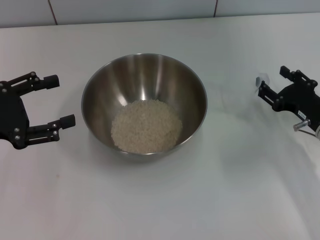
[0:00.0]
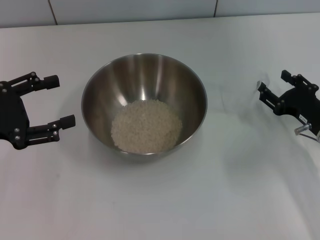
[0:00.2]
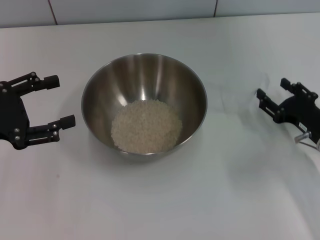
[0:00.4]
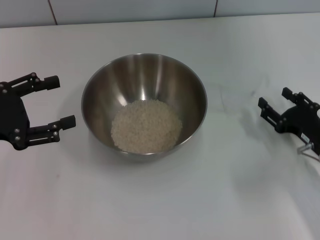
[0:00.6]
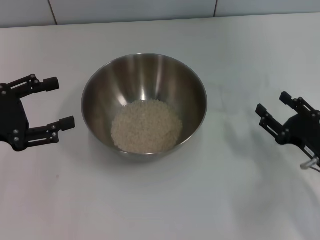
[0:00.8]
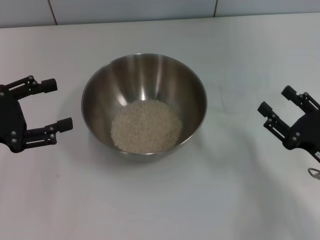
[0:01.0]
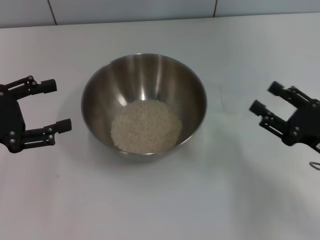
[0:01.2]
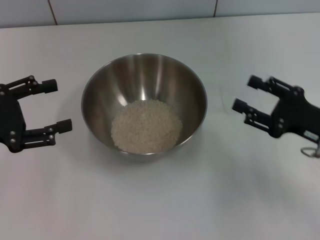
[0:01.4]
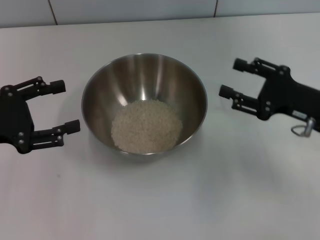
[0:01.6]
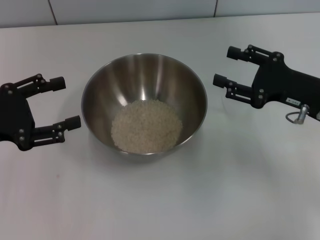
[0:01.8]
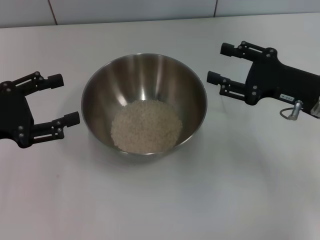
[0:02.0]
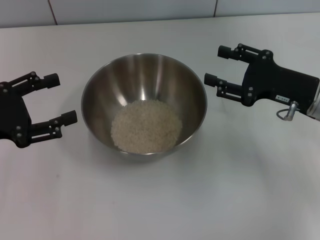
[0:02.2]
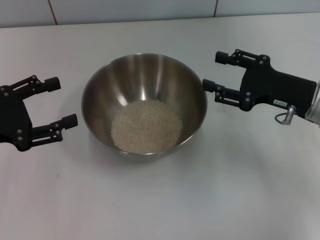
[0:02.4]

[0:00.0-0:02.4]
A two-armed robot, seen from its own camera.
Task of the whole recording: Place the bowl in the middle of the table with one hand and pour the rice from the grain cup into it with the other hand.
0:00.0 to 0:01.2: The right gripper shifts some 5 cm backward.
0:01.2 to 0:02.4: The right gripper goes about 10 cm forward.

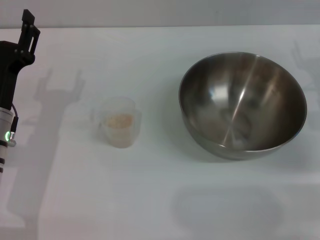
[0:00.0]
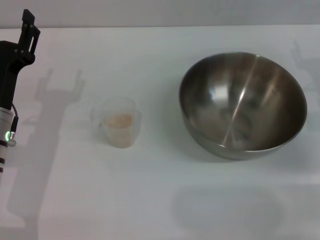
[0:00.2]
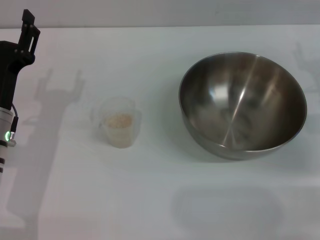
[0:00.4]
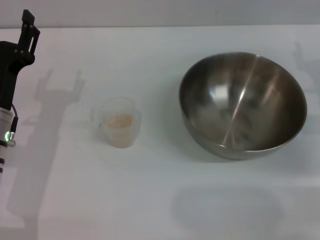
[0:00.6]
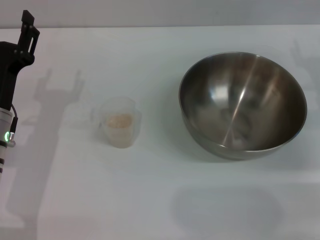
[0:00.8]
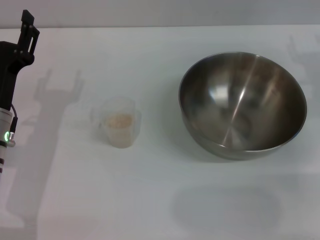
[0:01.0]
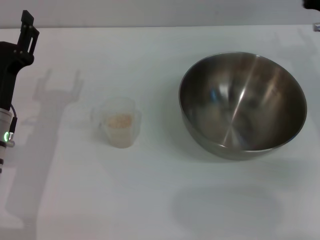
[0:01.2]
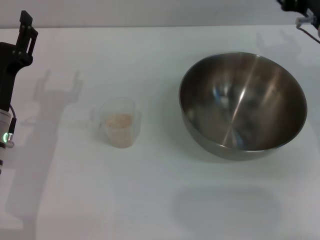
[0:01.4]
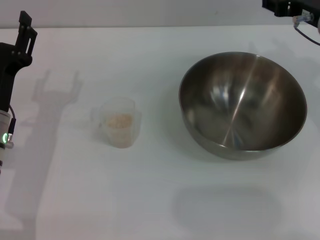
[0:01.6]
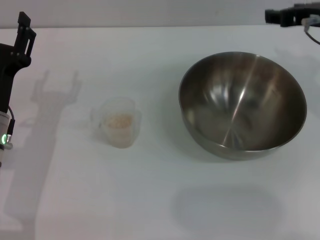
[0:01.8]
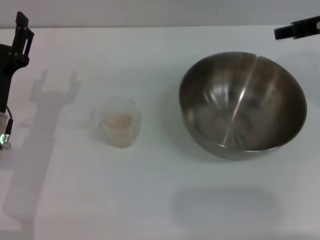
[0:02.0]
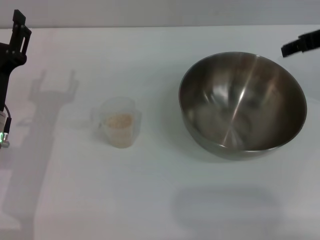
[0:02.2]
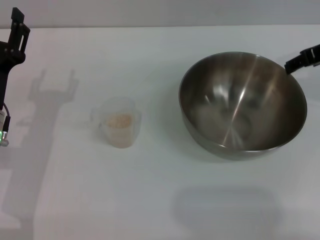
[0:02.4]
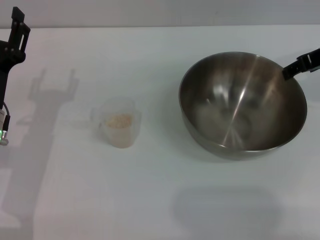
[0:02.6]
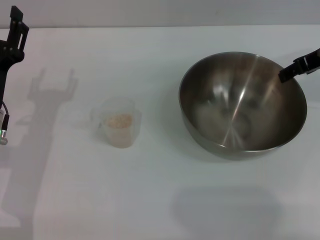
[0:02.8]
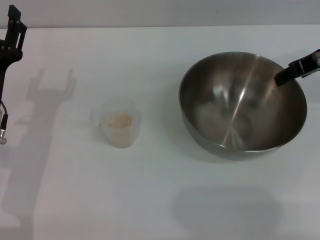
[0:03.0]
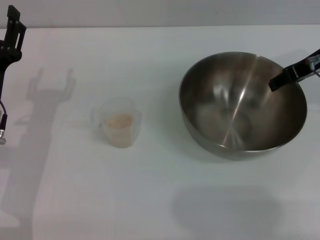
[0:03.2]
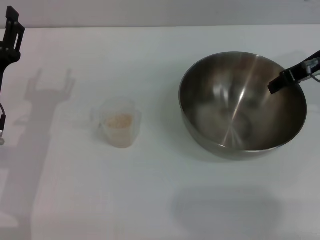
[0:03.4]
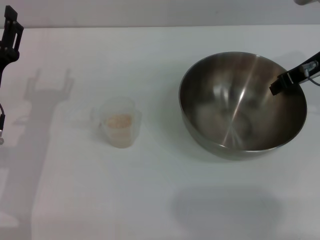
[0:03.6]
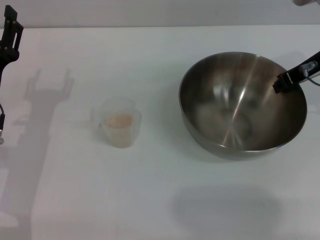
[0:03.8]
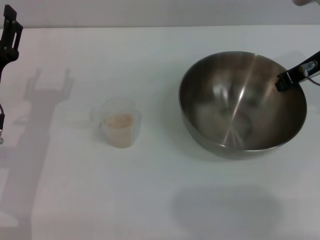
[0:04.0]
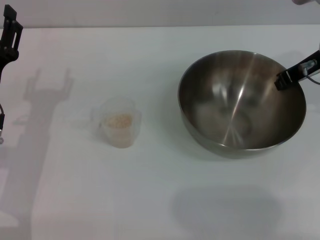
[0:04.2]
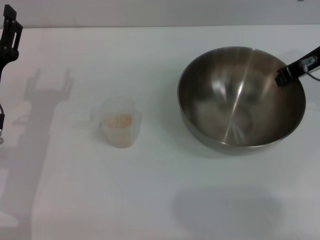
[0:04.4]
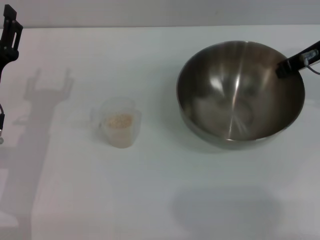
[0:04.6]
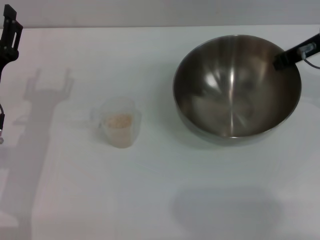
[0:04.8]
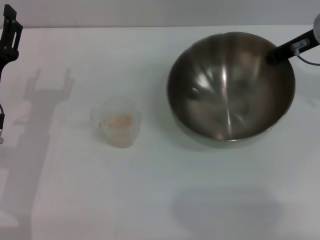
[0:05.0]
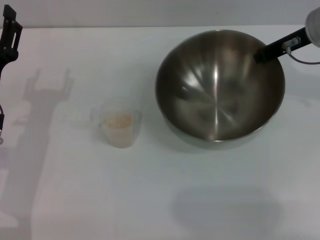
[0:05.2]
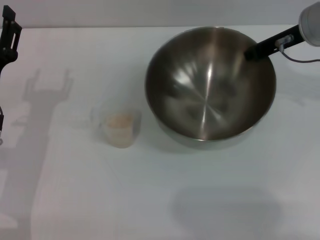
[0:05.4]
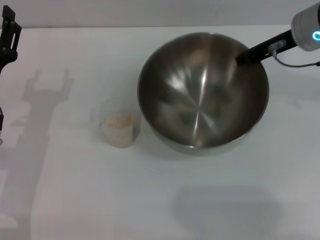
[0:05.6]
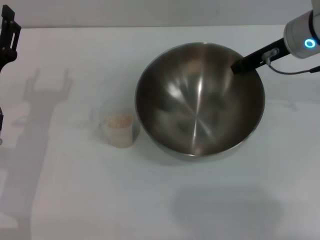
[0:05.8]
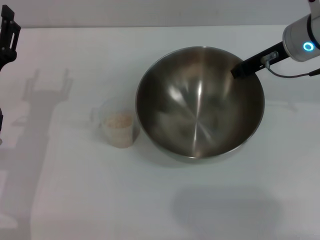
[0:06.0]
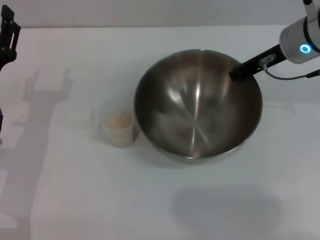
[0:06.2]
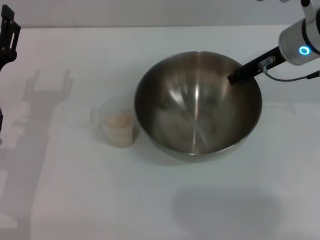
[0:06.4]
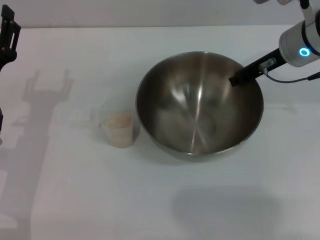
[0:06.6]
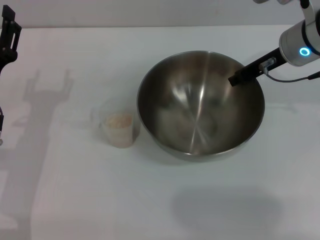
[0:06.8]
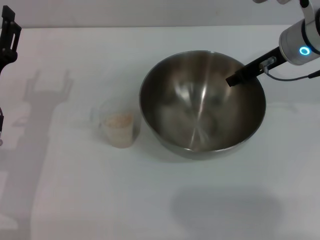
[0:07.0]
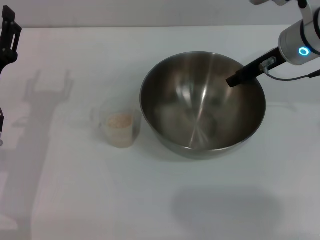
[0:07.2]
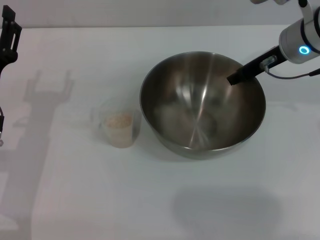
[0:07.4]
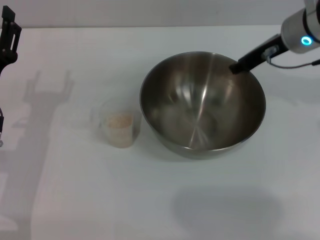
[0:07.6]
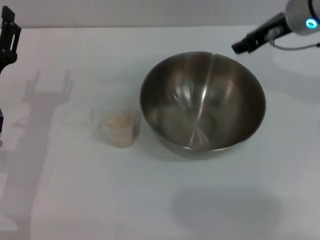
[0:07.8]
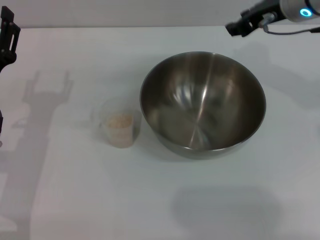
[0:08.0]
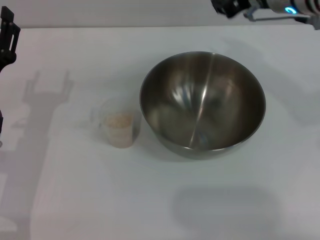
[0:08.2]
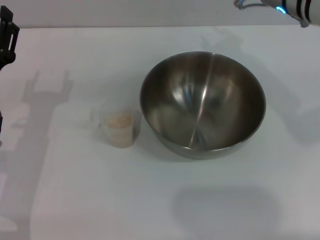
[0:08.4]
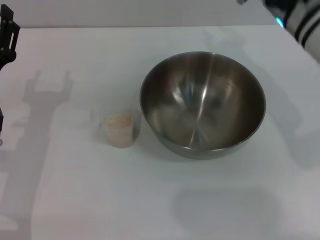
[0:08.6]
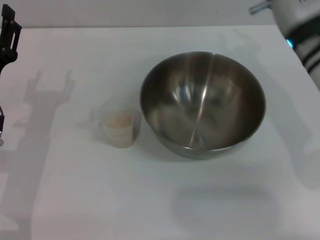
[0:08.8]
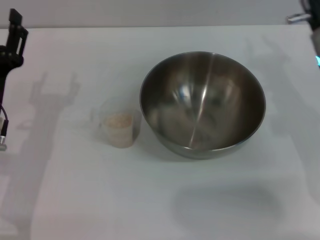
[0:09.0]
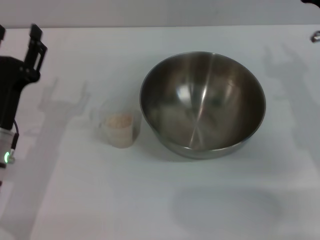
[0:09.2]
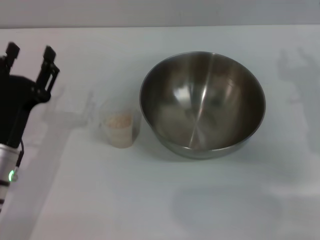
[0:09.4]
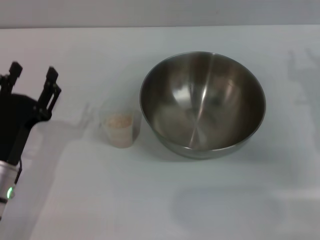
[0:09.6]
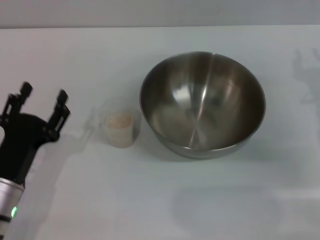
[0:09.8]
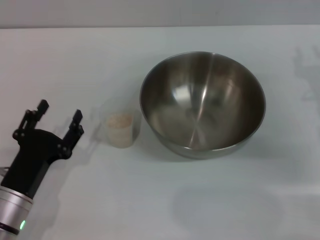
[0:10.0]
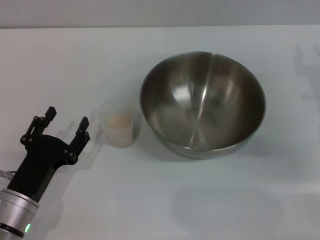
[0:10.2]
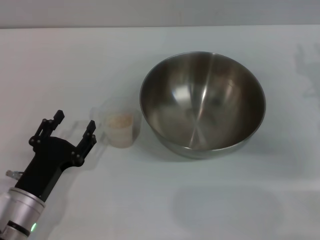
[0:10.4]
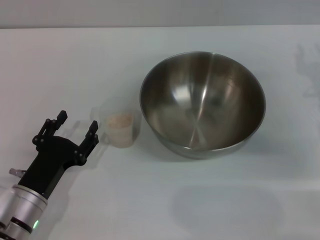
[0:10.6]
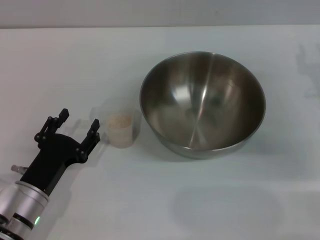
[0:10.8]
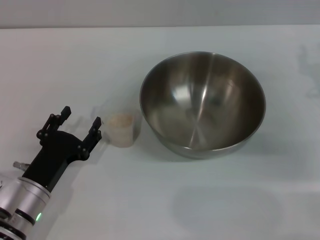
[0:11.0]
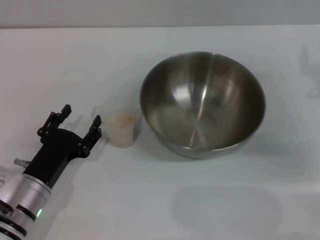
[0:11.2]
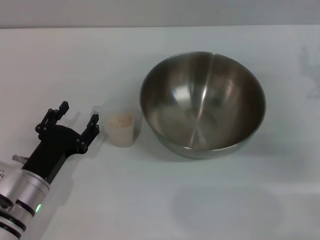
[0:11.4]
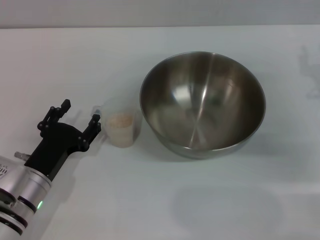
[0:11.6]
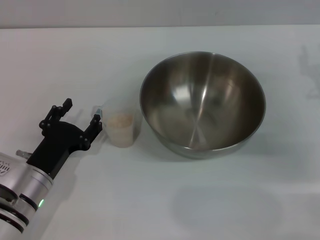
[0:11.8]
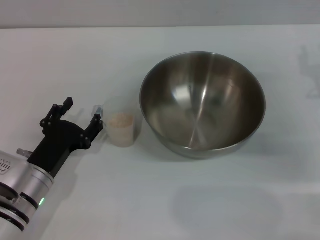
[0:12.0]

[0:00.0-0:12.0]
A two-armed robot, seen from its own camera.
Task of the whole recording: Place the bowl in the middle of the table with one hand and pour the rice from the grain cup into it with the other hand.
Step, 0:00.0 to 0:05.0: Pick up the bowl with the right gripper.
Step, 0:05.2 to 0:07.6: Place the bowl in the center of view with the right gripper.
0:00.0 to 0:01.6: The right gripper heads upward and to the left, covering approximately 10 cm.
0:03.0 to 0:04.4: The right gripper closes.
0:06.0 to 0:07.6: The right gripper opens its fingers.
0:07.6 to 0:09.0: The right gripper moves backward, some 10 cm.
0:09.0 to 0:10.4: The right gripper travels to the right by approximately 10 cm. The left gripper moves backward and downward, about 10 cm.
0:10.4 to 0:12.0: The grippers stay close to where they were, moving slightly.

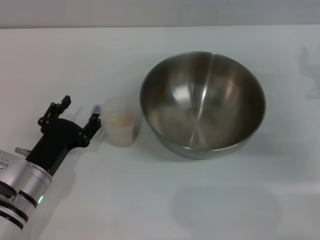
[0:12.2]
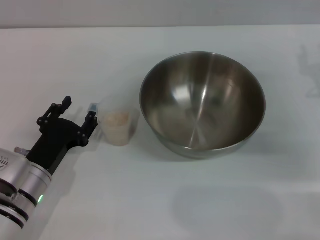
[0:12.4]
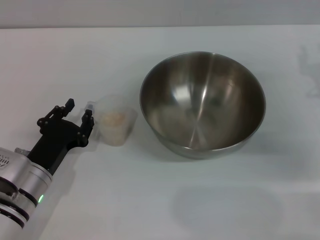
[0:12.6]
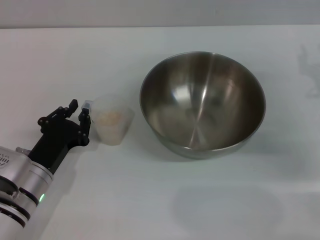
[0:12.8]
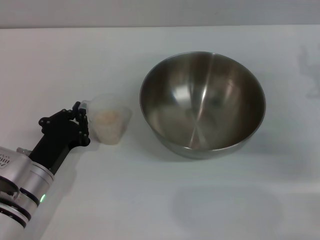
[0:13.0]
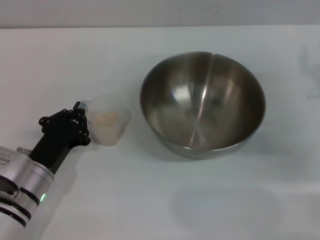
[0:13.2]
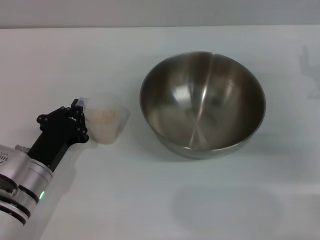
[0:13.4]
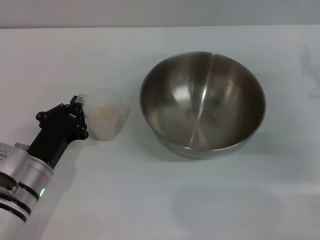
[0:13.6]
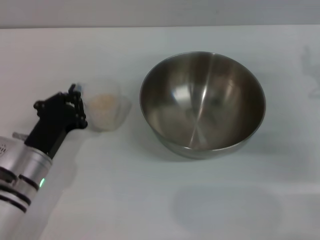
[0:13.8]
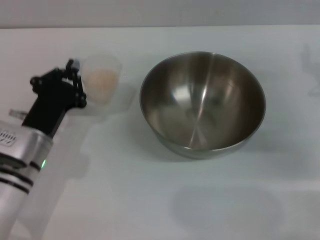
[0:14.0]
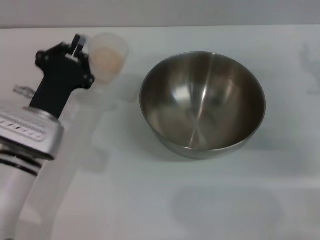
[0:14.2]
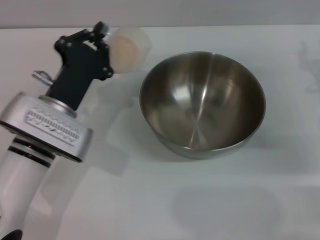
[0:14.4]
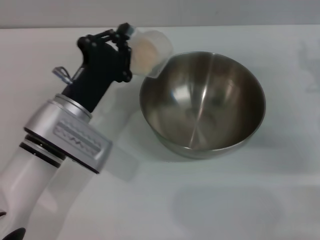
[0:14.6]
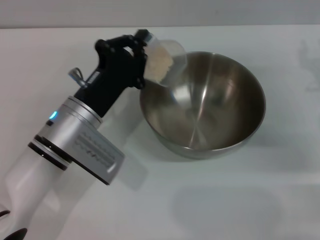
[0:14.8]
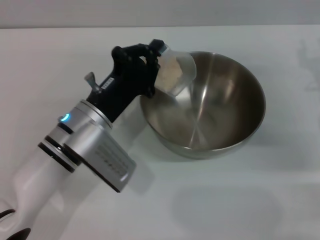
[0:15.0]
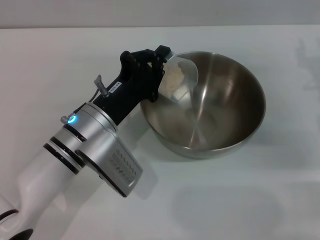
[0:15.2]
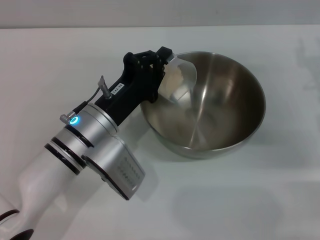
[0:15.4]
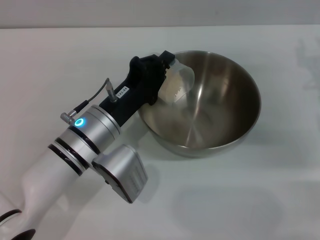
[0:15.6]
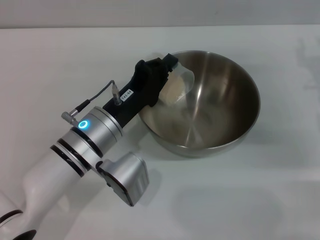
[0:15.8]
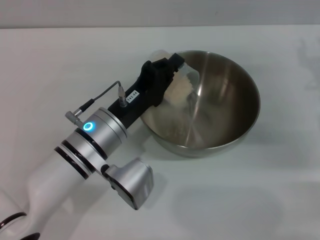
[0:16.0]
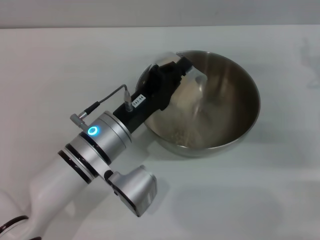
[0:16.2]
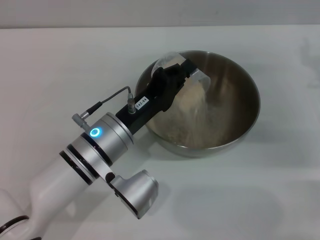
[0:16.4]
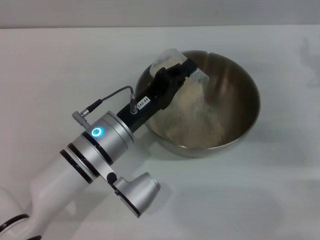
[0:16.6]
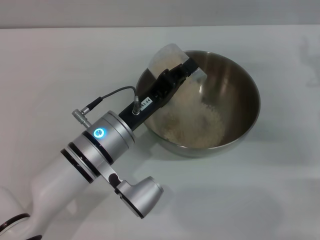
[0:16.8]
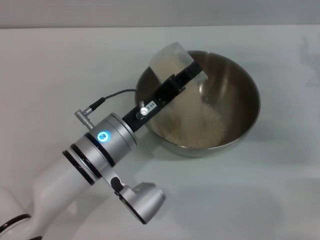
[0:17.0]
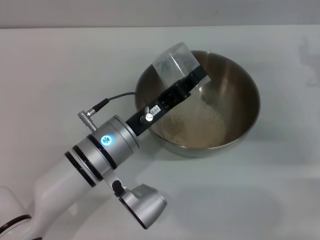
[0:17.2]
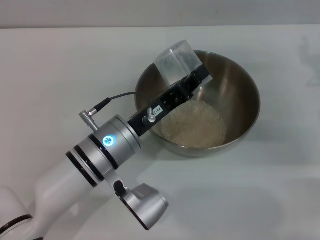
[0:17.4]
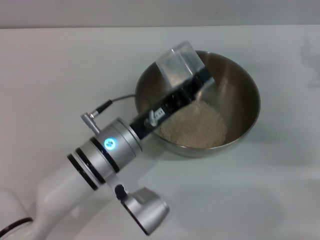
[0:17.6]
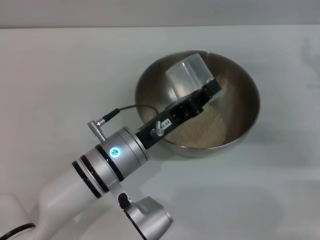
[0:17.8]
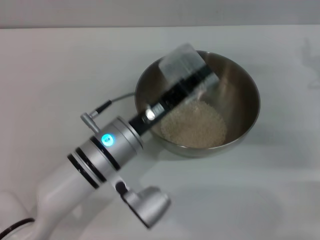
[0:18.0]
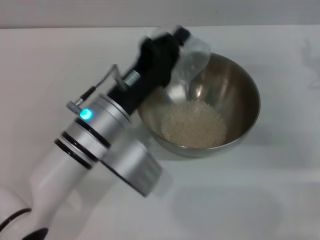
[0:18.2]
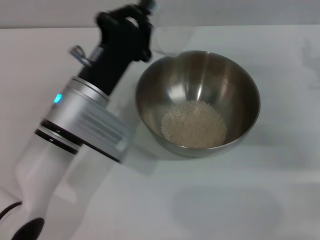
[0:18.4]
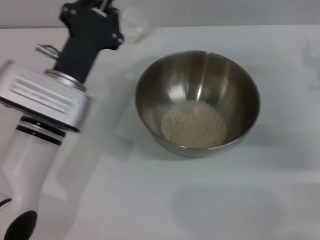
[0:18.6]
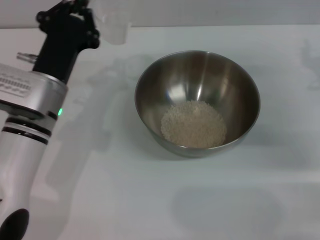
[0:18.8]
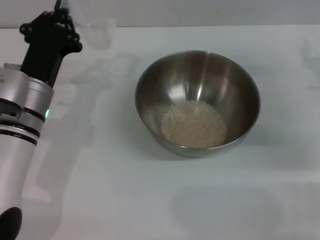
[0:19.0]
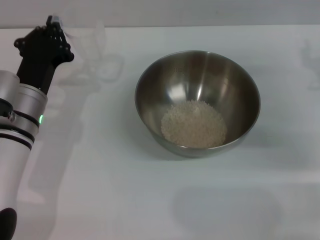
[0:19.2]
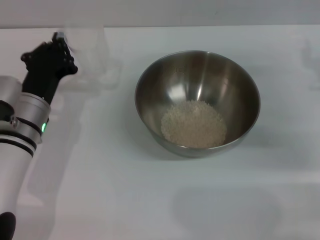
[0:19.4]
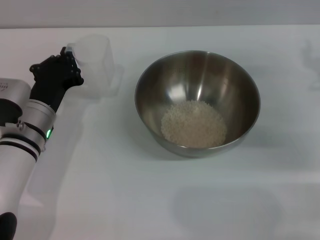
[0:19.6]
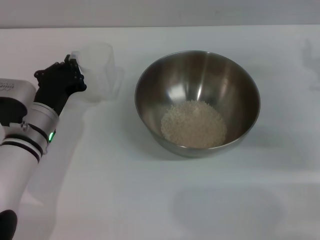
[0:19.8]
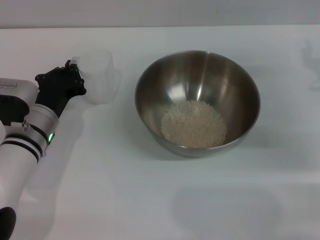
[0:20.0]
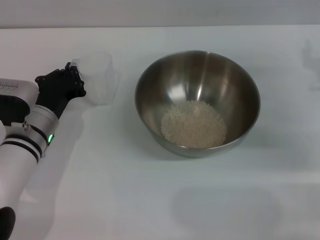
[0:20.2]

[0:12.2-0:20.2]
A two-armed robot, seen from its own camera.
Task of the whole recording: Place the bowl in the middle of the table with one hand and pour the rice from the grain cup into it with the other hand.
Step, 0:14.2 to 0:18.0: Pour the rice from the cup into the bowl with the left gripper.
0:12.2 to 0:13.8: The left gripper closes up.
0:13.8 to 0:15.4: The left gripper shifts roughly 10 cm to the right.
0:17.0 to 0:18.6: The left gripper moves roughly 5 cm.
0:18.6 to 0:20.2: The left gripper shifts about 10 cm downward and to the left.
